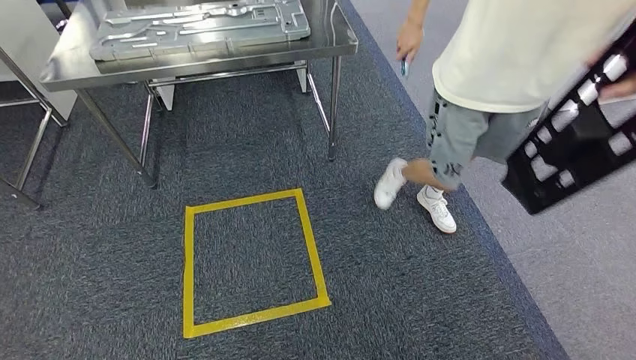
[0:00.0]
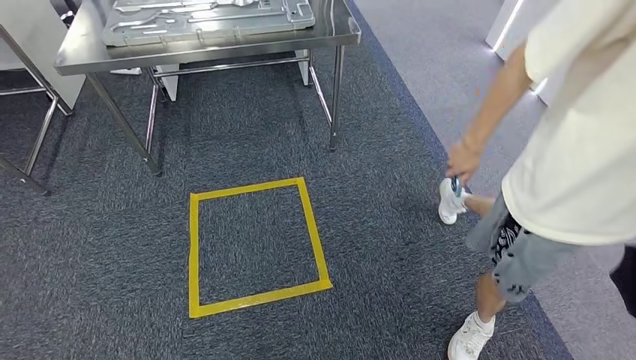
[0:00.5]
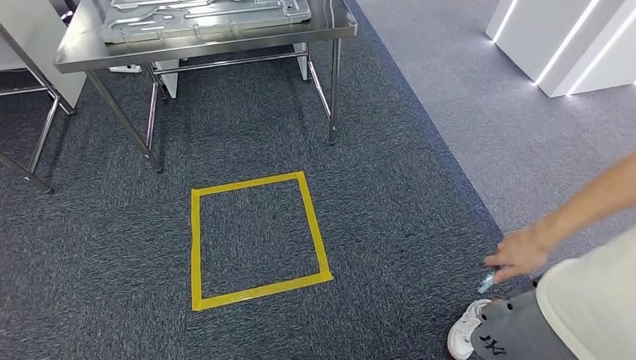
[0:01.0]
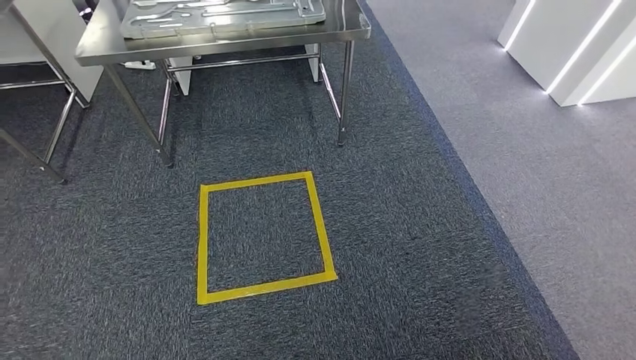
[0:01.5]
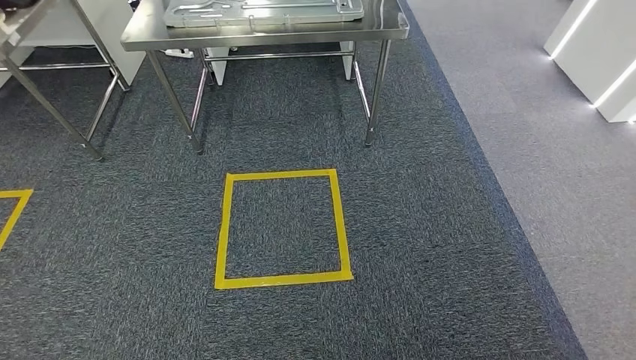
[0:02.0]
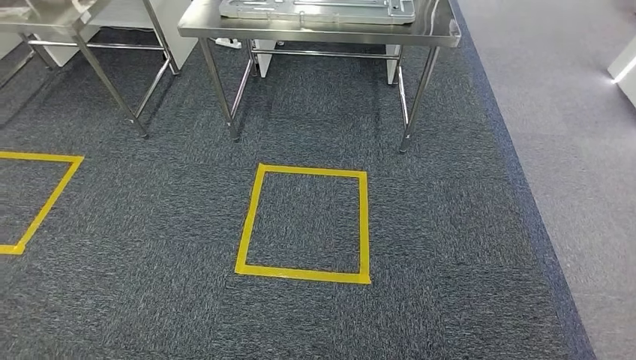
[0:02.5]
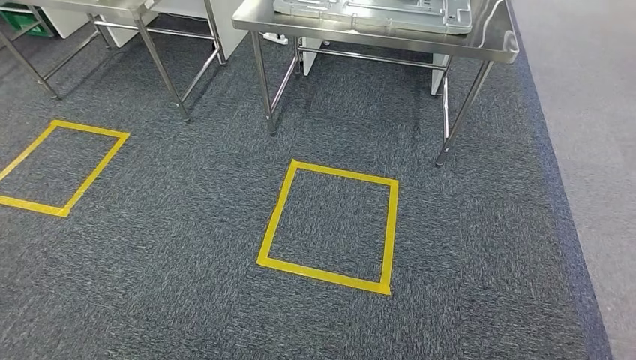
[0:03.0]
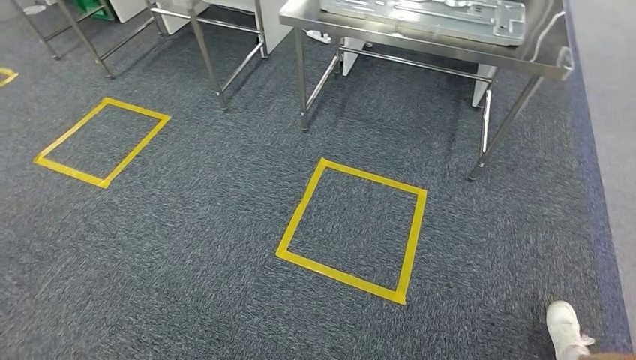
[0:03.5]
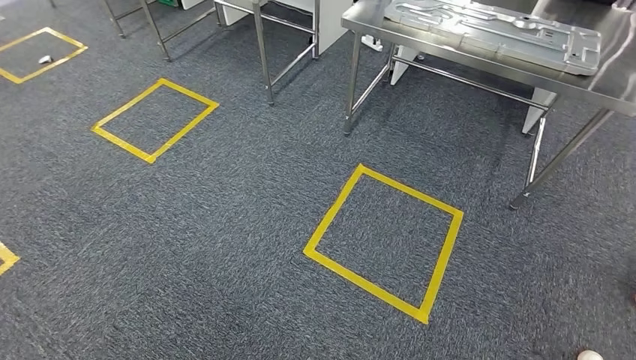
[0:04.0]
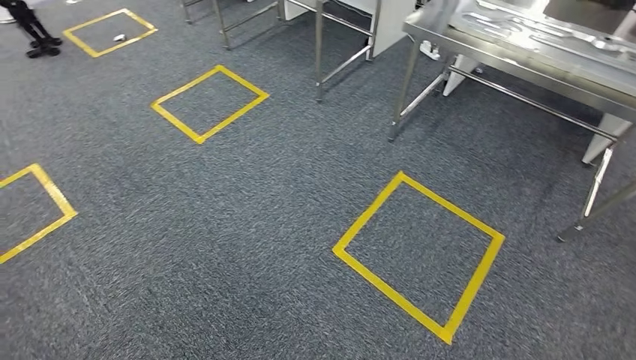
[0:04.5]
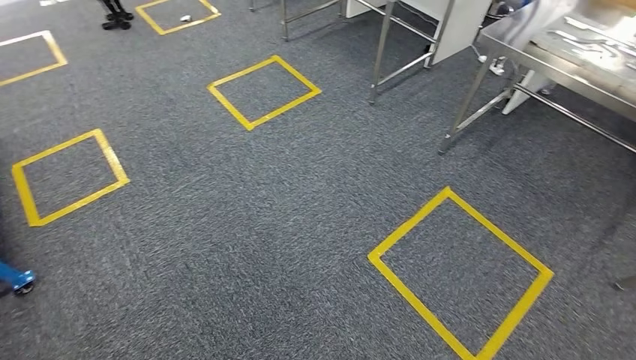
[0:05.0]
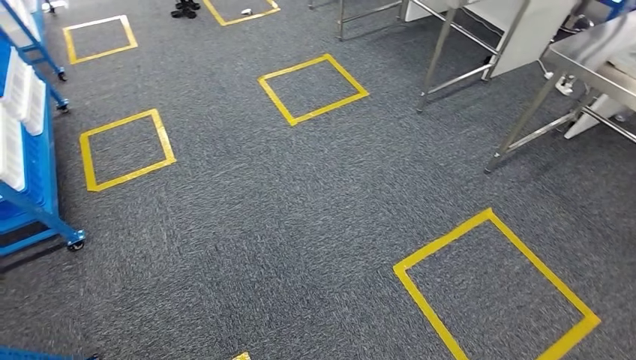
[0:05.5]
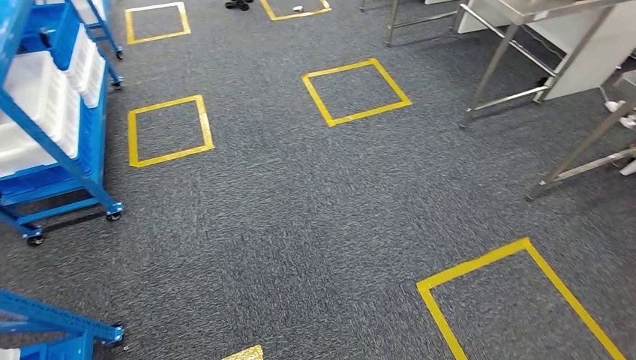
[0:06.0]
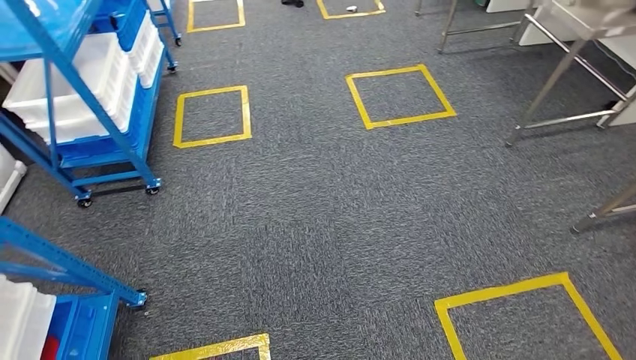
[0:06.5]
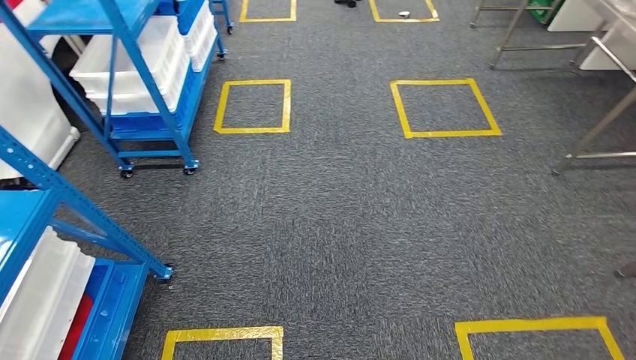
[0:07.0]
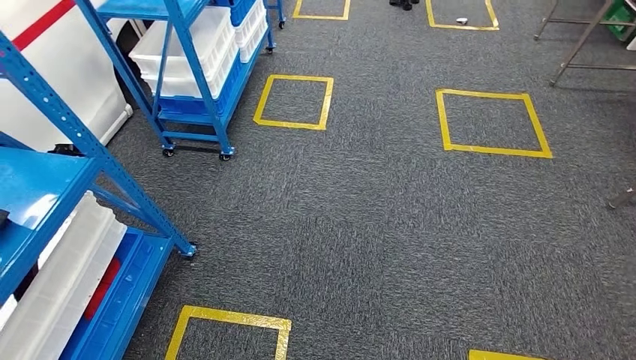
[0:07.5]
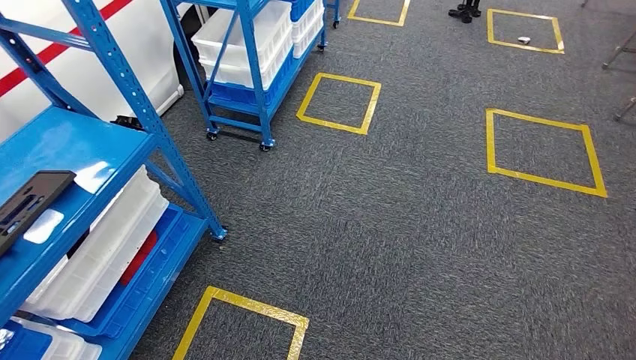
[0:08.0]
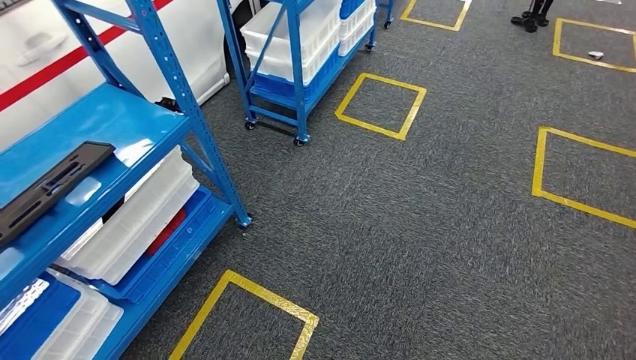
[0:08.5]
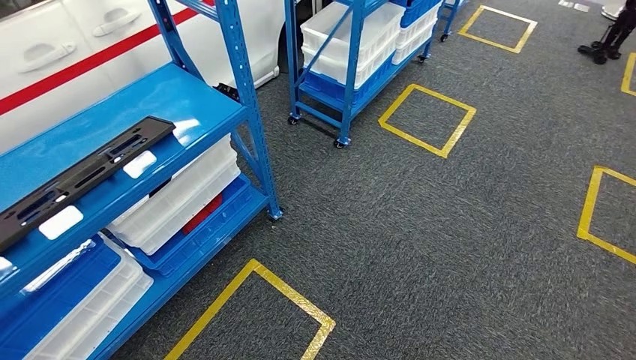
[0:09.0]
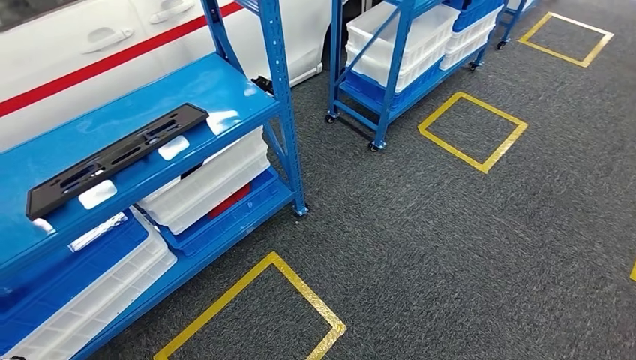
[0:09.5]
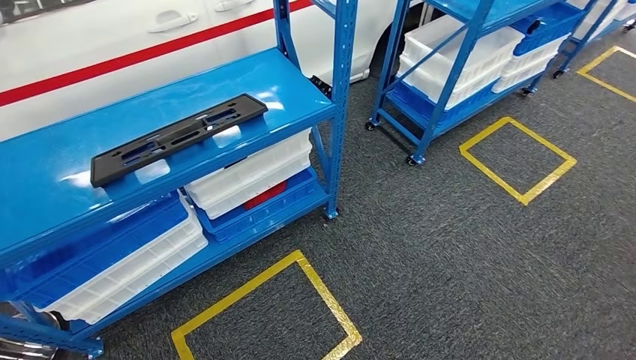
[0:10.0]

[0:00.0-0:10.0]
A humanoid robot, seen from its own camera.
Step, 0:04.0 to 0:10.0: Move to the initial position of the shelf.

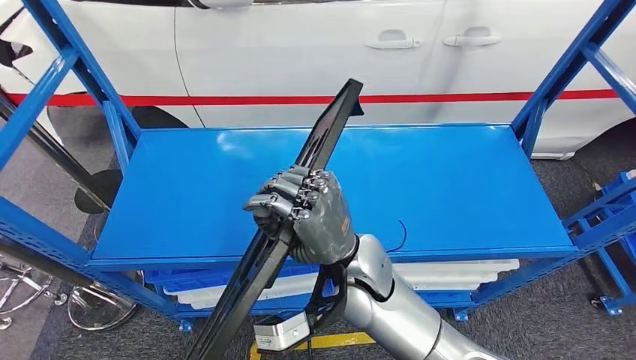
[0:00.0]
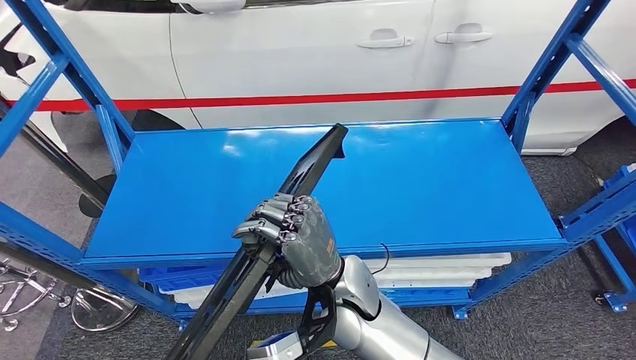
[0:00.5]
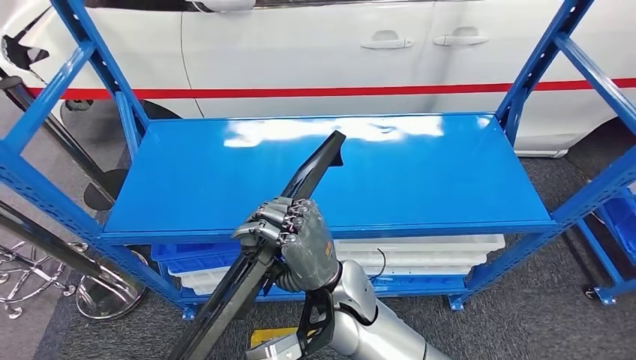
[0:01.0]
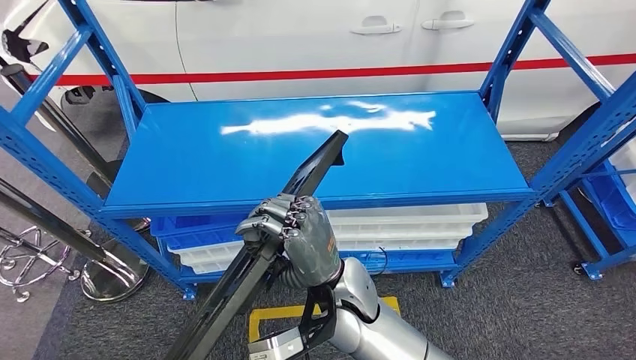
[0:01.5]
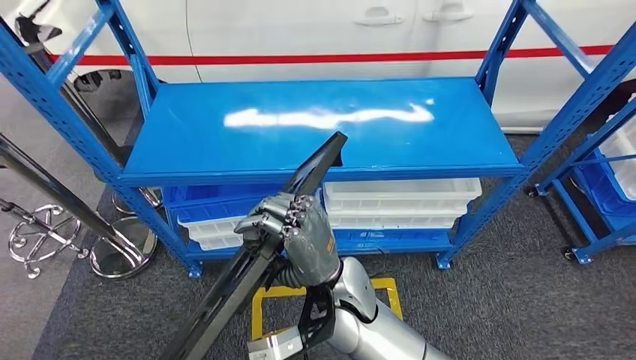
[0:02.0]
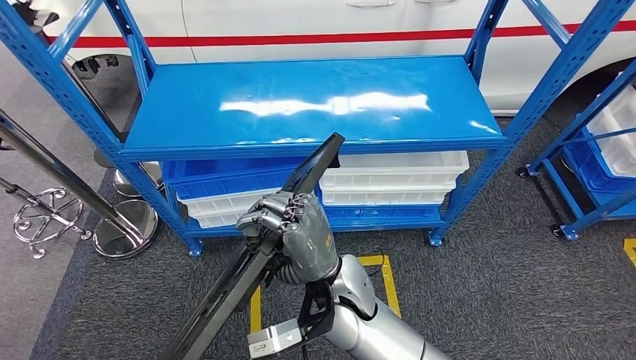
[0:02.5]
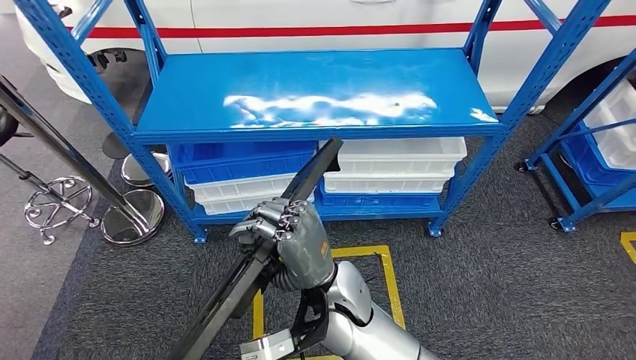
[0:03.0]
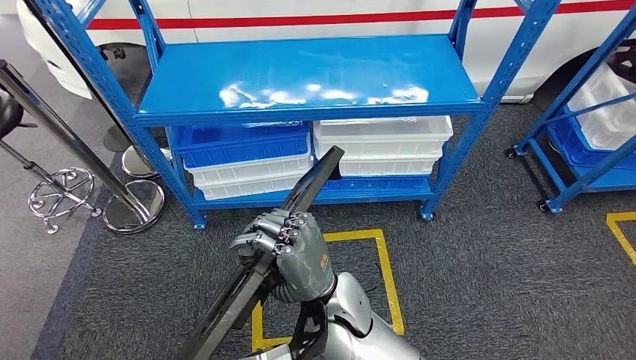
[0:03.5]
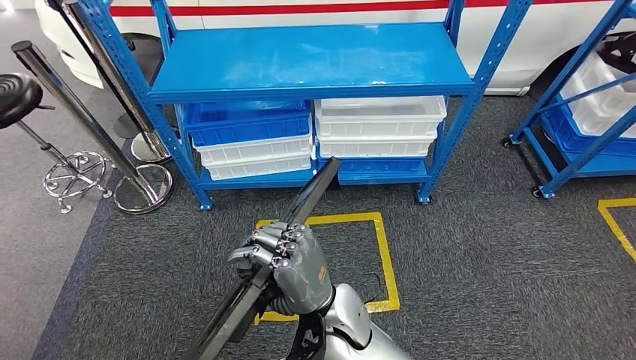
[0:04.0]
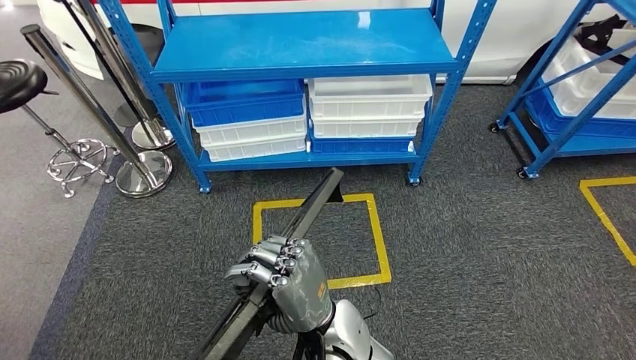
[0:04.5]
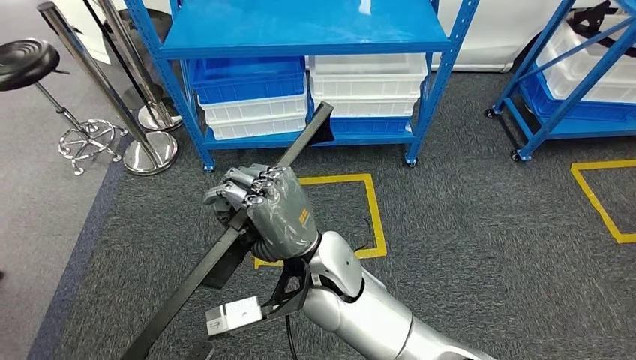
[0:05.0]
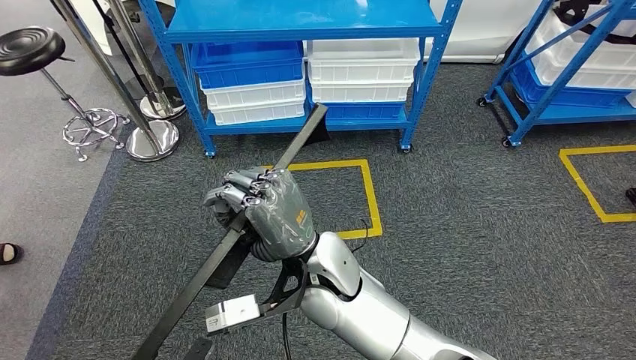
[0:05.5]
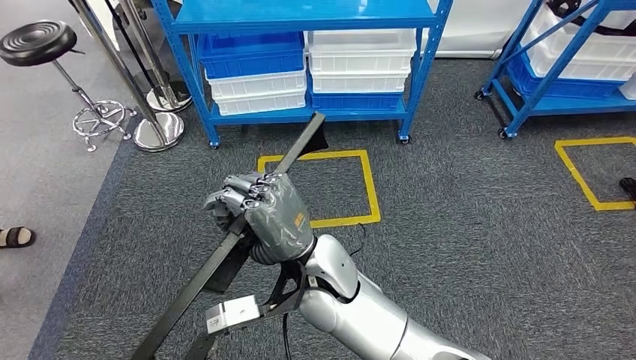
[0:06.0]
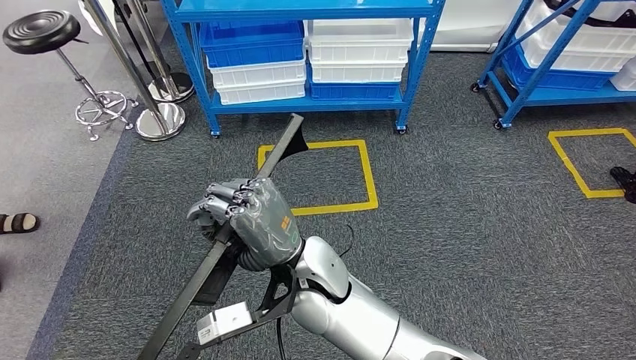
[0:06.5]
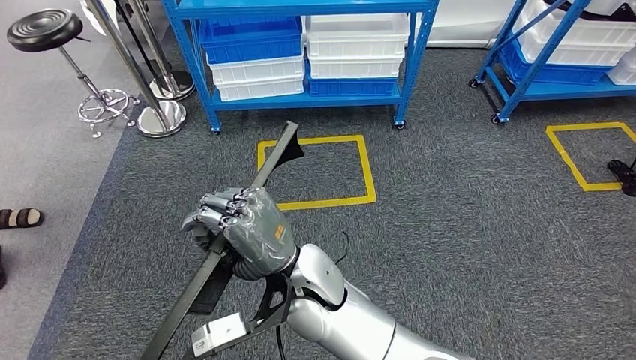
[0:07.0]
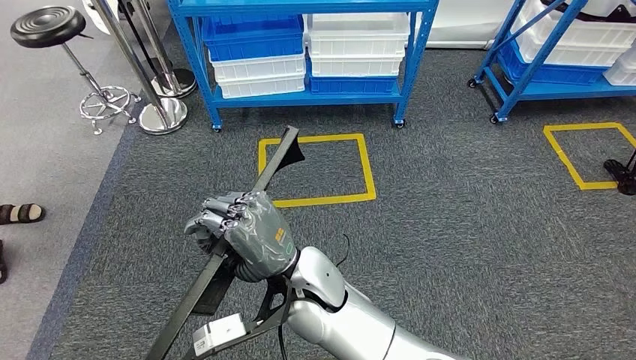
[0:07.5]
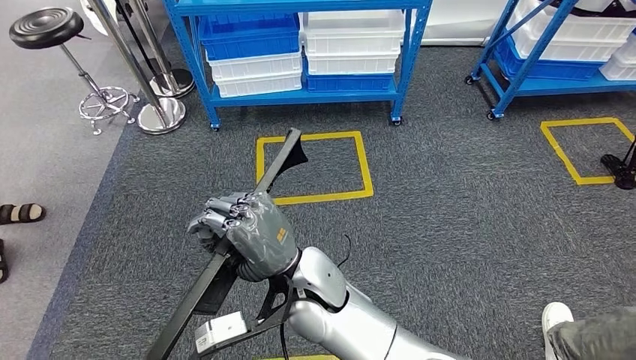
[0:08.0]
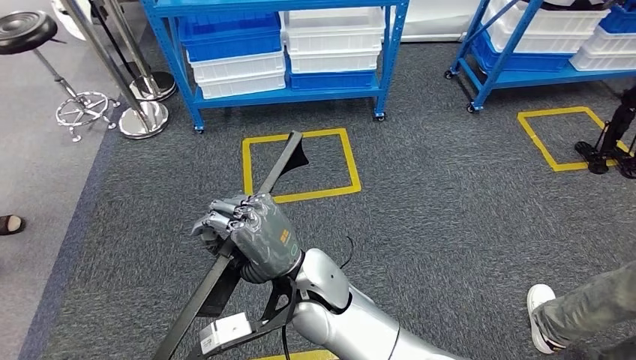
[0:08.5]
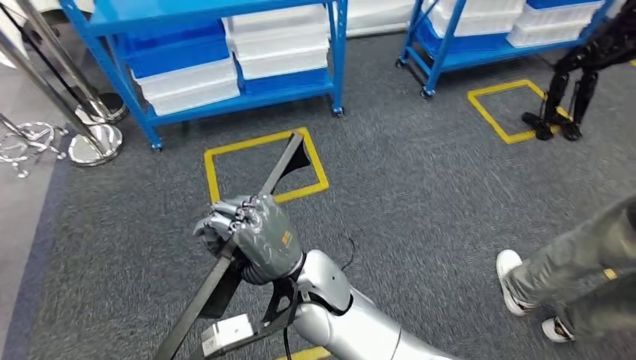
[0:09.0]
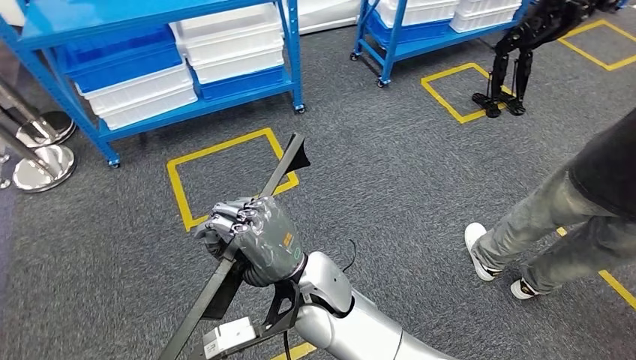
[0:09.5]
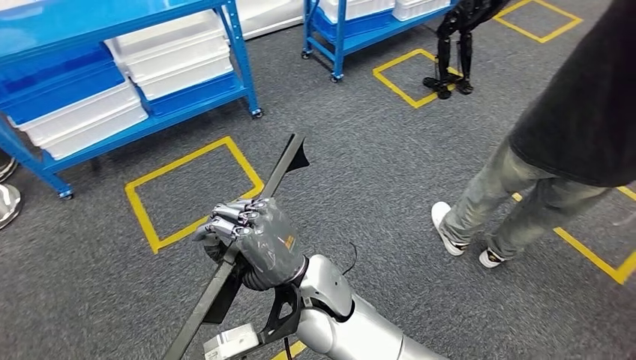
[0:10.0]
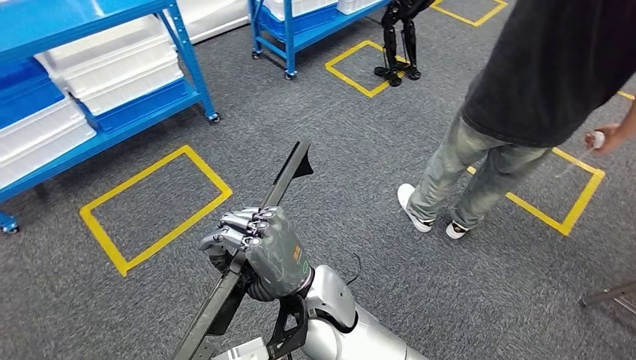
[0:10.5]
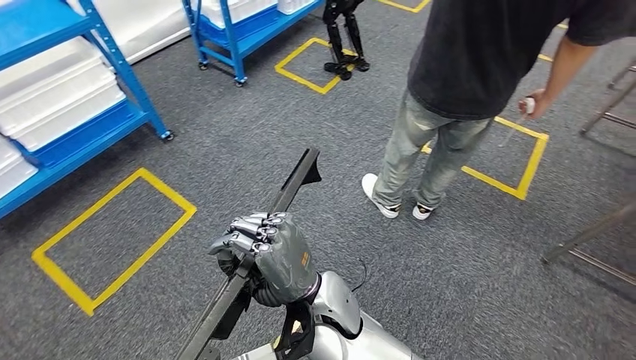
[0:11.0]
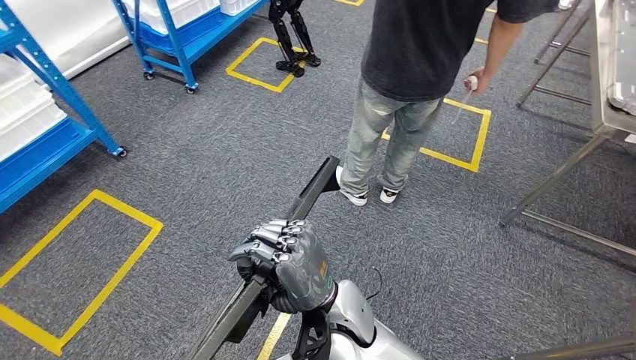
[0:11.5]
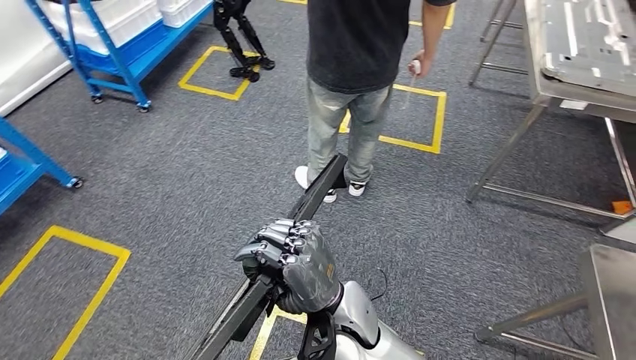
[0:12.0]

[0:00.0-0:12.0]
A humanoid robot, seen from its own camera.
Step, 0:00.0 to 0:02.0: Pick up the large material from the shelf.
